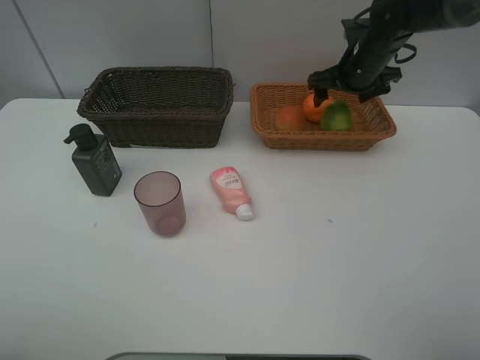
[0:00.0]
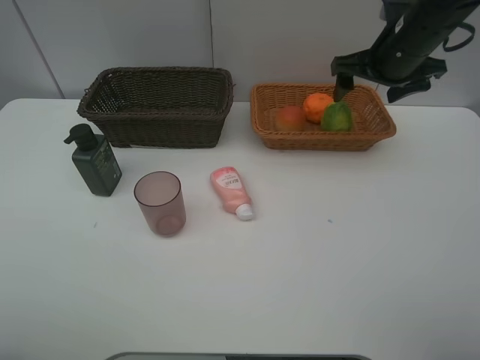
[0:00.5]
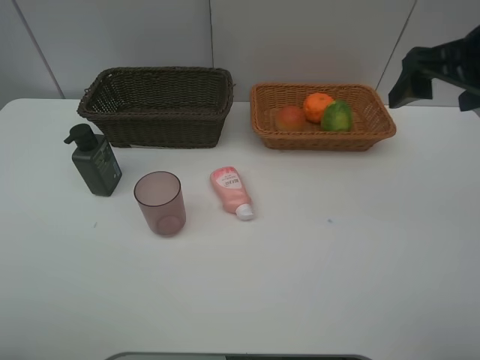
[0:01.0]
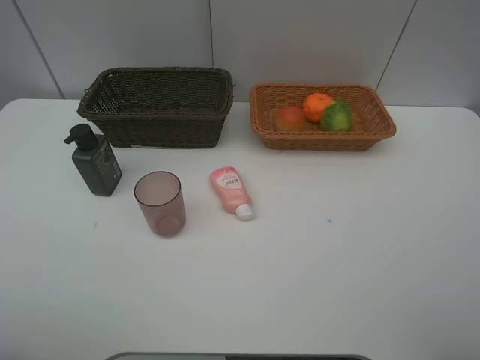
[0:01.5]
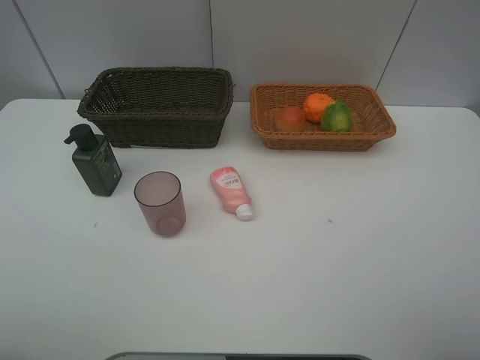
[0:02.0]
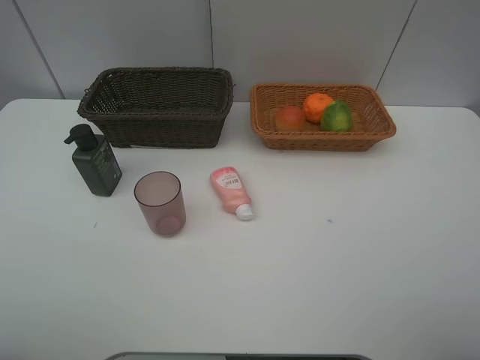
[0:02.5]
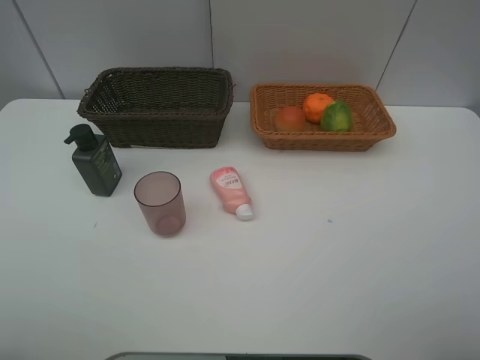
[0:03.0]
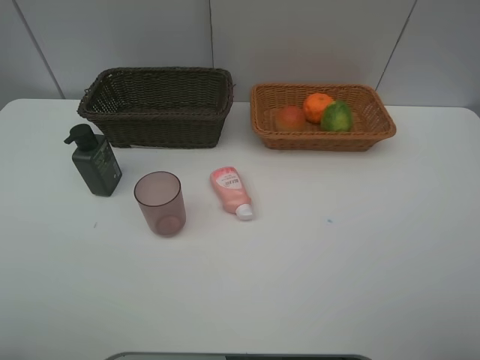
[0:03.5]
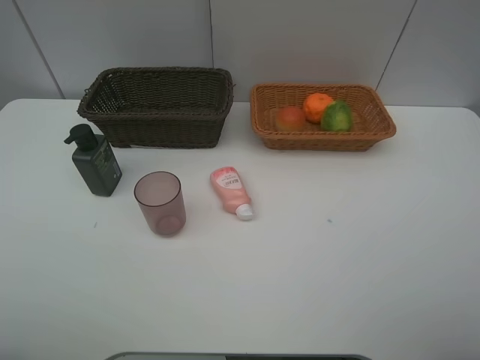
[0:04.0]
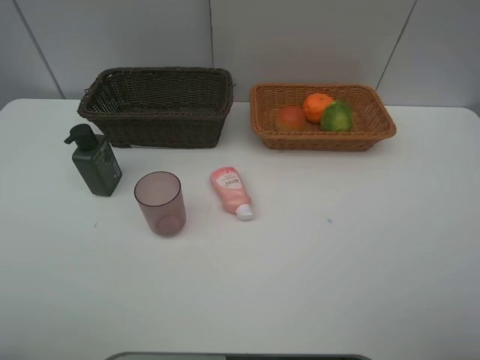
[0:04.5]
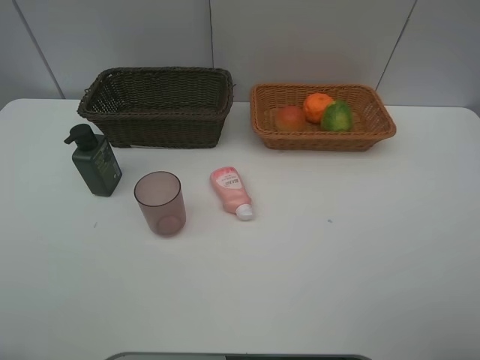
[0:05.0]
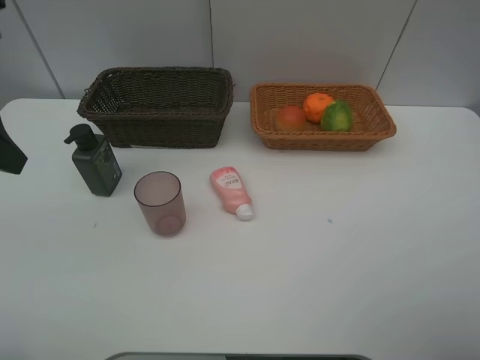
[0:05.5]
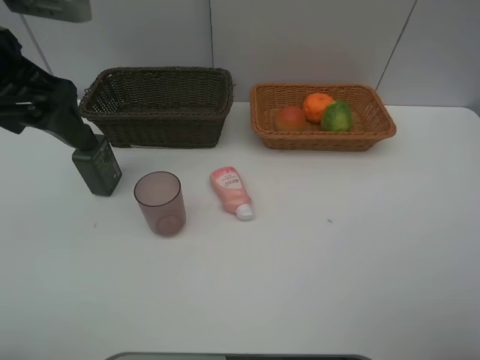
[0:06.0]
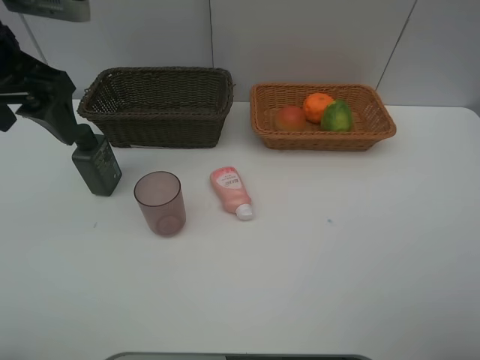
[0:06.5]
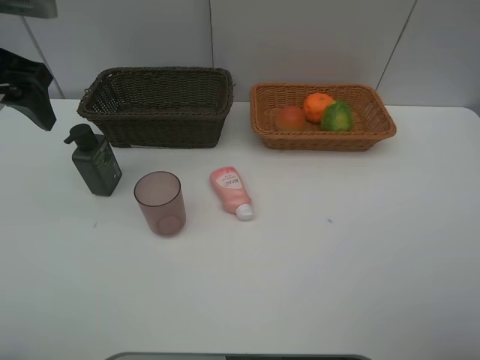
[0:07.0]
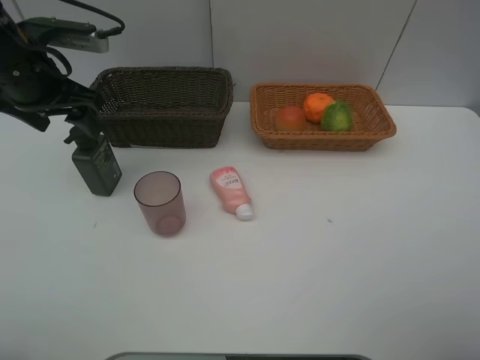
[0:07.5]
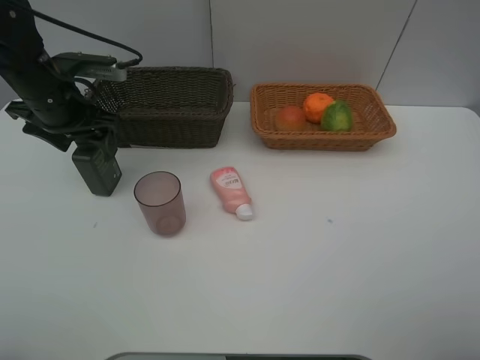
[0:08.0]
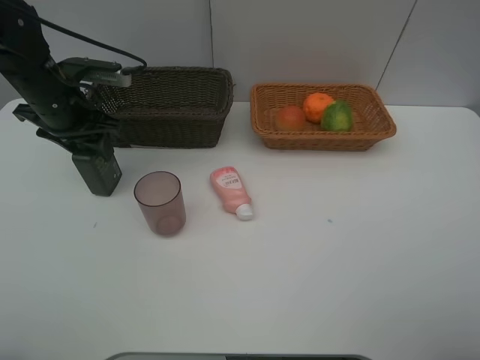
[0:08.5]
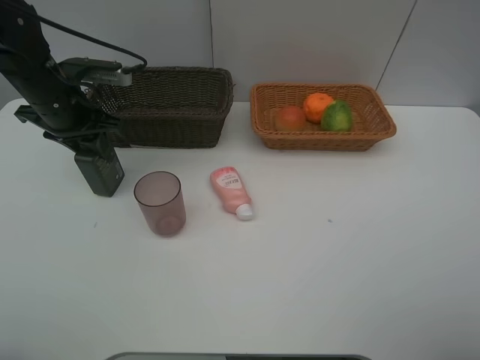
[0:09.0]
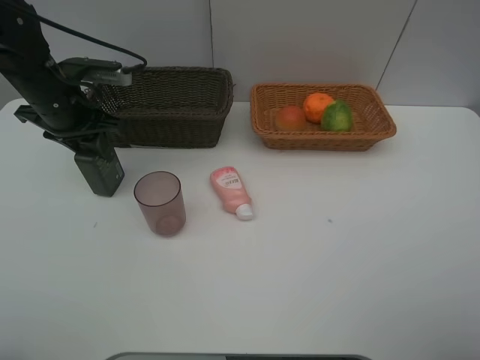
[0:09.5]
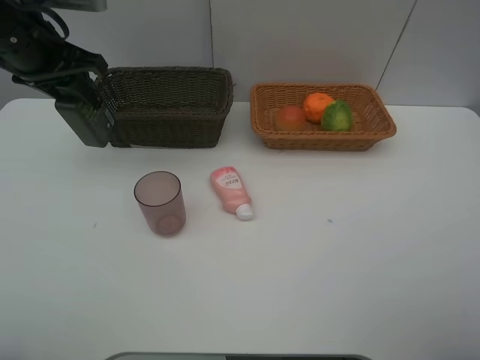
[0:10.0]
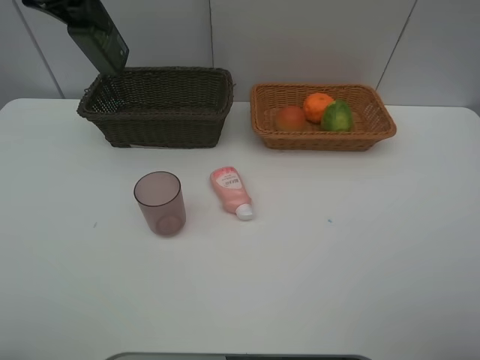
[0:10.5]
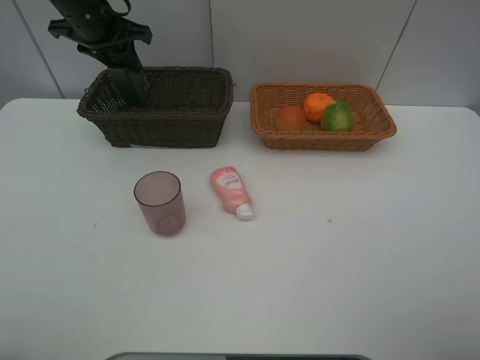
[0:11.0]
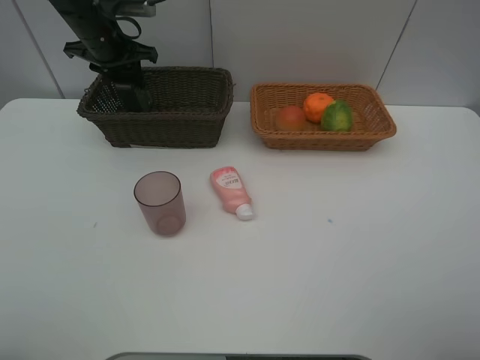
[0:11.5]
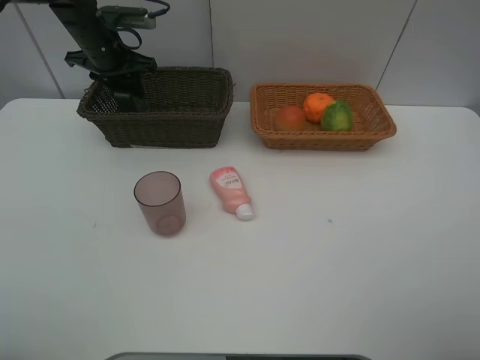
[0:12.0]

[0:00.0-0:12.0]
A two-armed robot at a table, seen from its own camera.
Task of the whole recording: place multiple objects separately in different baskets.
0:00.0 to 0:02.0: The right gripper shifts about 50 cm backward.
0:04.0 to 0:06.0: The left gripper shifts about 25 cm forward.
0:06.0 to 0:08.0: The left gripper moves downward and forward, some 15 cm.
0:08.0 to 0:10.0: The left gripper goes roughly 10 cm upward, and closes its fingers.
0:10.0 to 0:12.0: The left gripper is displaced forward and downward by roughly 20 cm.

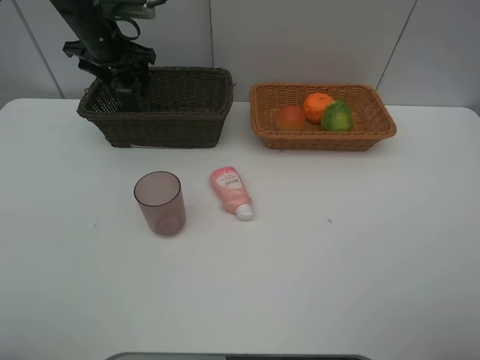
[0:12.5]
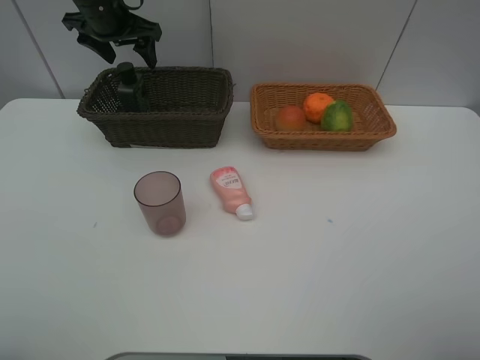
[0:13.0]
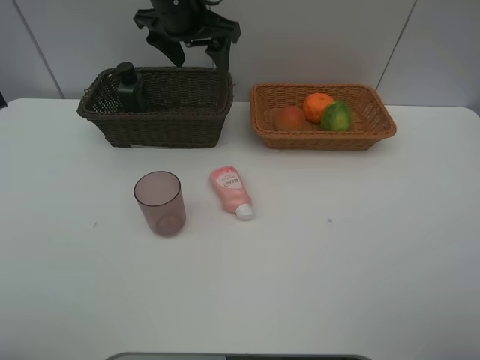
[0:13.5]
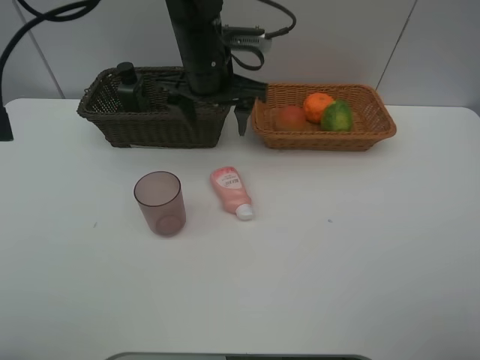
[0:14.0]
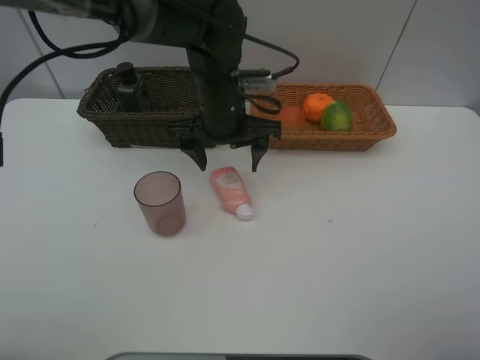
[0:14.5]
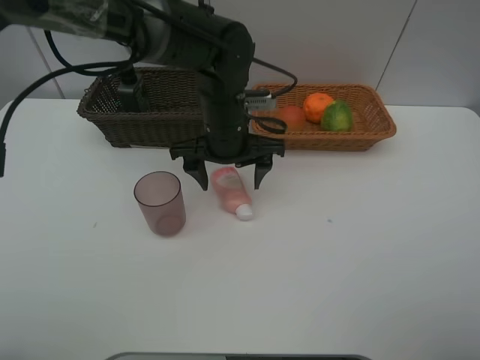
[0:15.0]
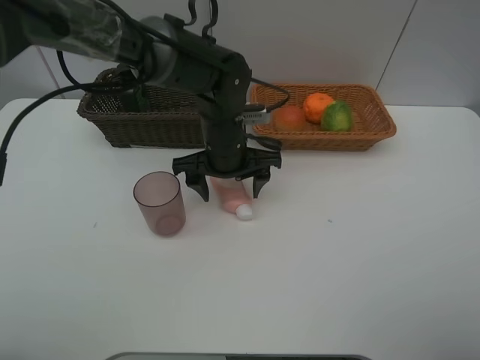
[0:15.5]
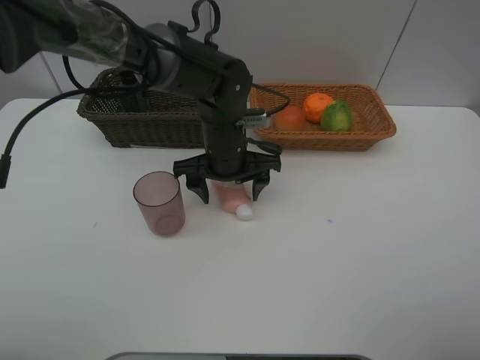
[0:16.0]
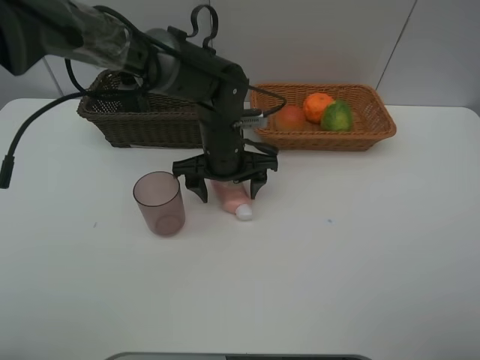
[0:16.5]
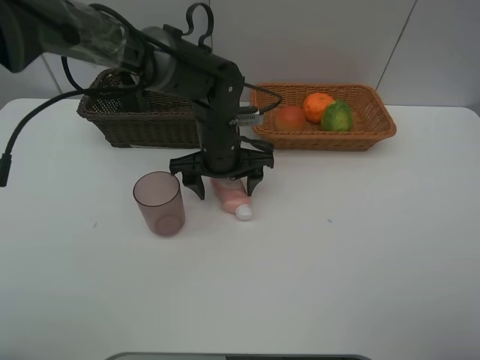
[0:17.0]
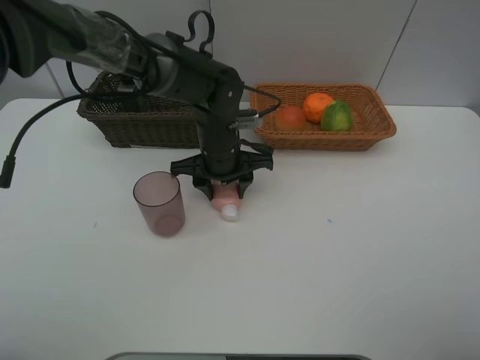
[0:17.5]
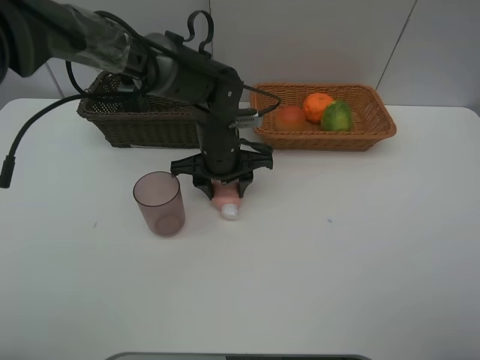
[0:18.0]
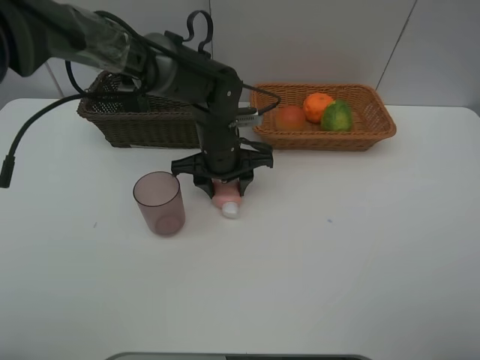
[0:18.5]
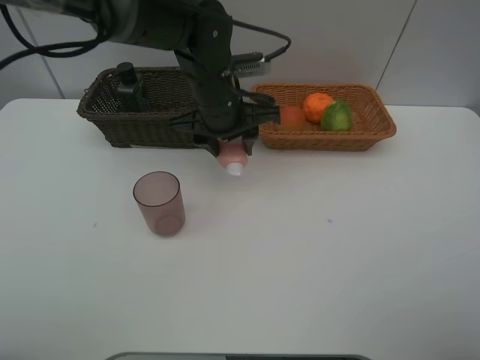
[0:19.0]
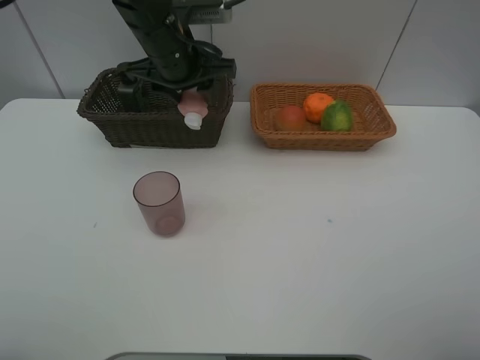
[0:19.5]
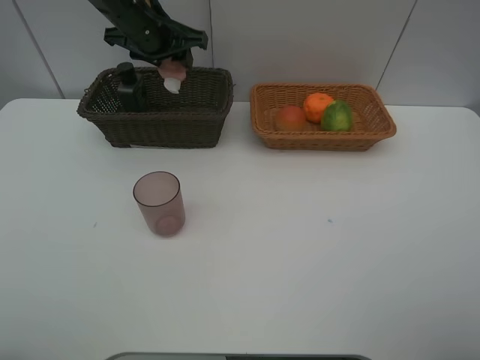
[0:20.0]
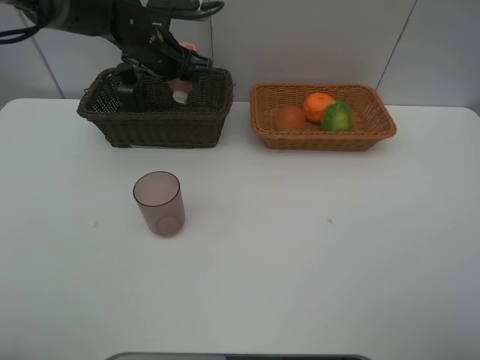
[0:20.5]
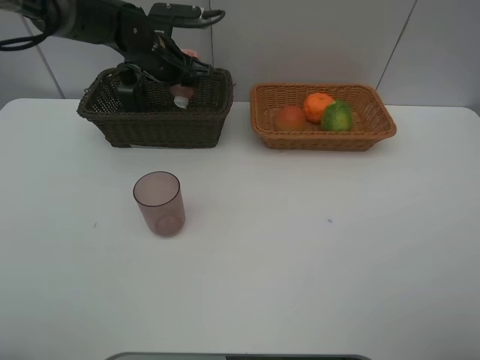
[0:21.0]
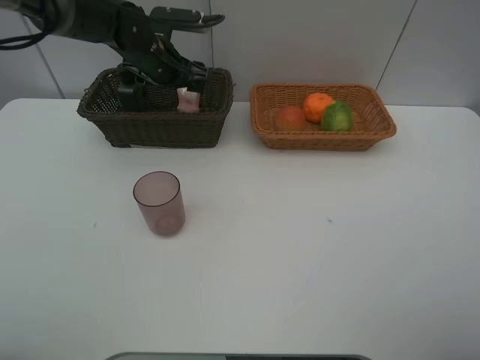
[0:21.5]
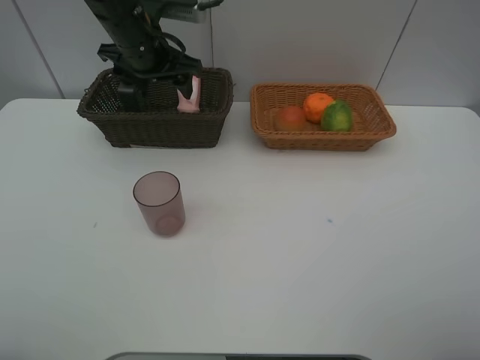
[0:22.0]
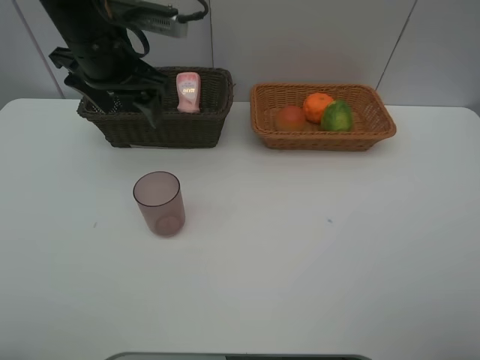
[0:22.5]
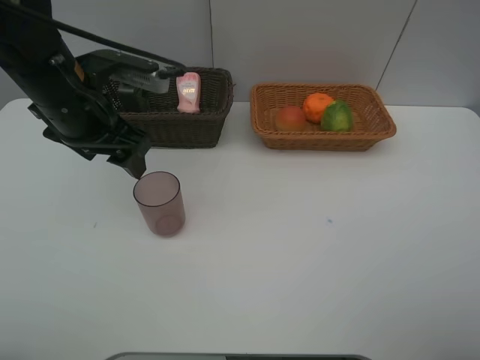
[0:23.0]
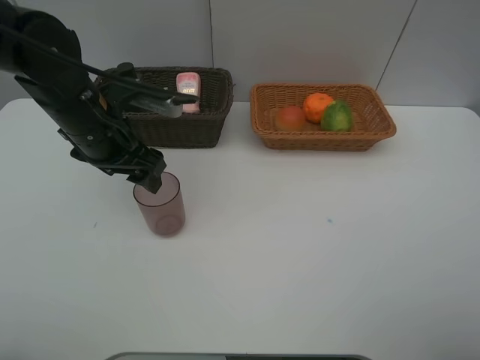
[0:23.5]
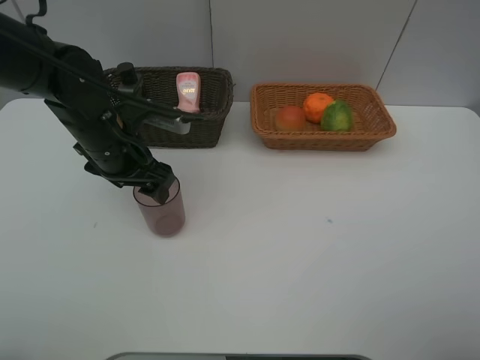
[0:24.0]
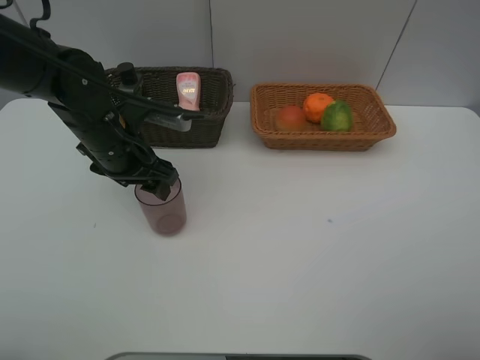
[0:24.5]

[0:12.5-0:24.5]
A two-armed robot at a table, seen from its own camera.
Task of the whole recording: place multiple objects separately in different baskets.
0:12.5 to 0:14.5: The left gripper travels to the right and backward by approximately 25 cm.
0:14.5 to 0:16.5: The left gripper shifts some 5 cm downward.
0:16.5 to 0:18.5: The left gripper closes.
0:18.5 to 0:20.5: The left gripper travels forward, to the left and upward by some 20 cm.
0:20.5 to 0:22.5: The left gripper shifts about 15 cm backward and upward, and opens up.
0:22.5 to 0:24.5: The left gripper travels downward by approximately 10 cm.

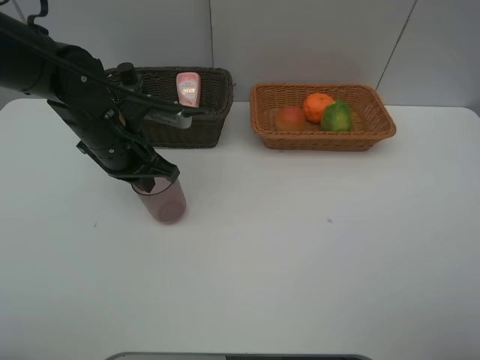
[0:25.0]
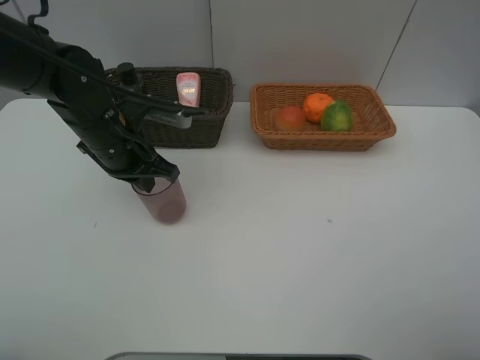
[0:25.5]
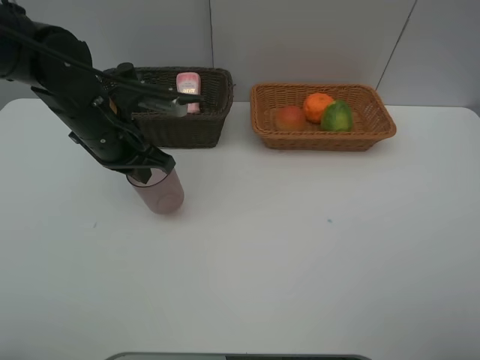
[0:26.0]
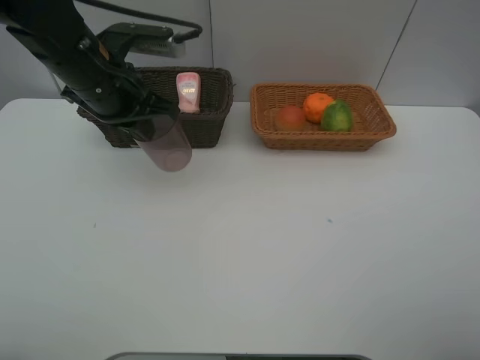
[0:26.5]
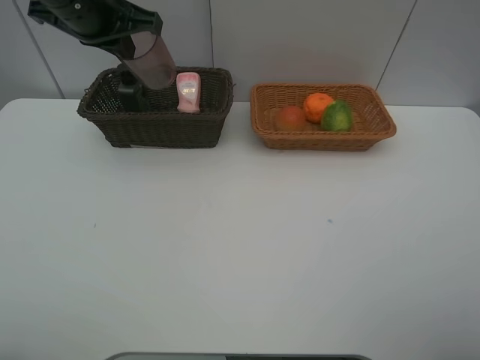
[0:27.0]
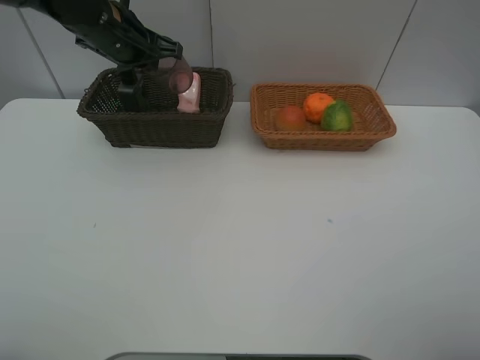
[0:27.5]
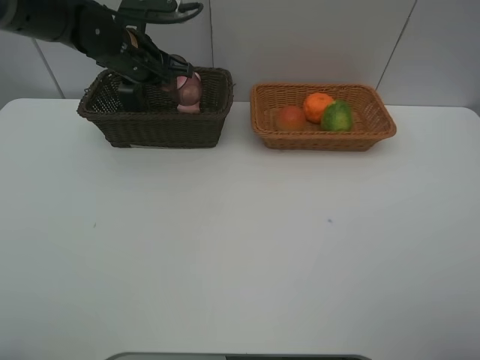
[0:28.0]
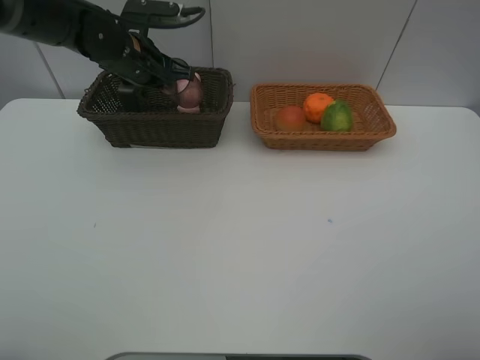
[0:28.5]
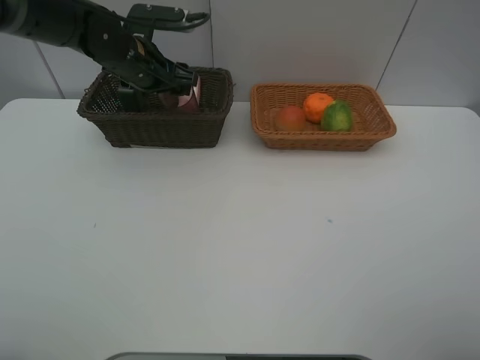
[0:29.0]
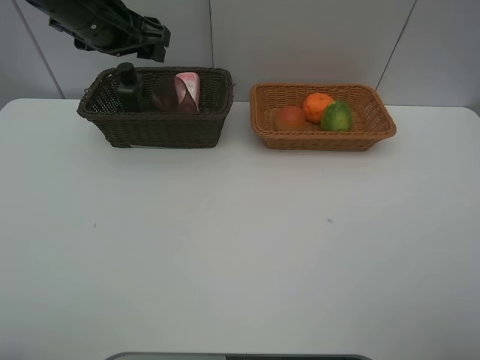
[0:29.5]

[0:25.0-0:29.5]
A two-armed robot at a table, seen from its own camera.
Task of the whole recording: place multiple objects separately in different baskets.
0:25.0 to 0:27.0: The left gripper is displaced upward by some 15 cm.
0:27.0 to 0:29.5: The left gripper travels downward and back again, about 10 cm each way, and opens its fingers.
